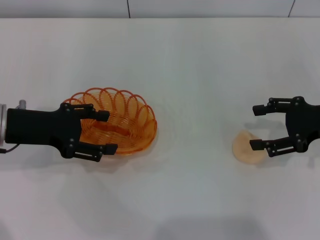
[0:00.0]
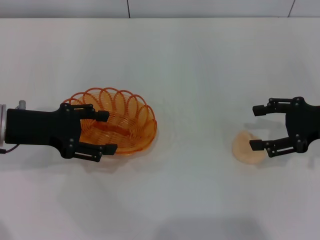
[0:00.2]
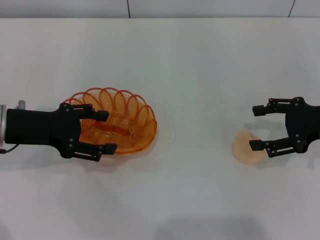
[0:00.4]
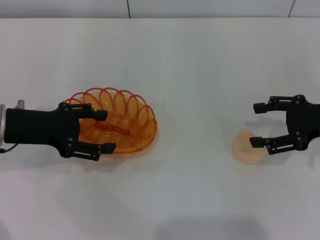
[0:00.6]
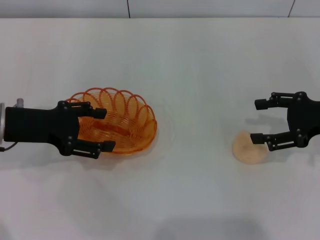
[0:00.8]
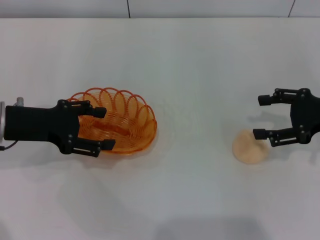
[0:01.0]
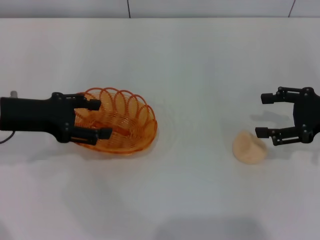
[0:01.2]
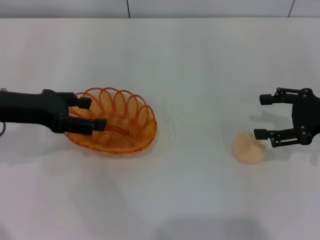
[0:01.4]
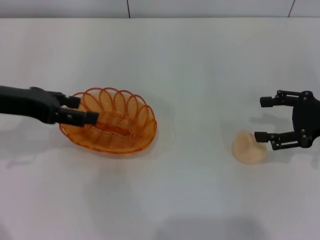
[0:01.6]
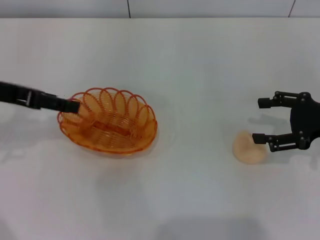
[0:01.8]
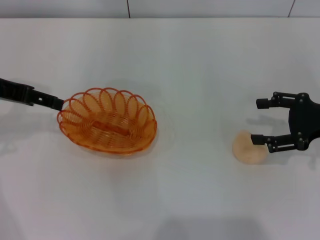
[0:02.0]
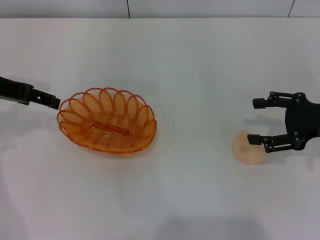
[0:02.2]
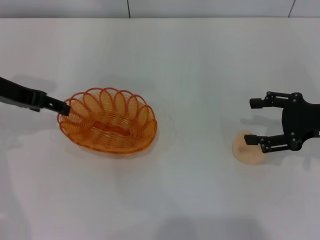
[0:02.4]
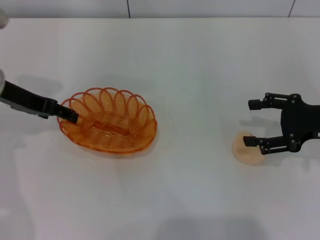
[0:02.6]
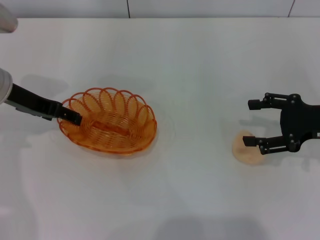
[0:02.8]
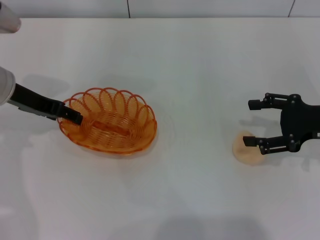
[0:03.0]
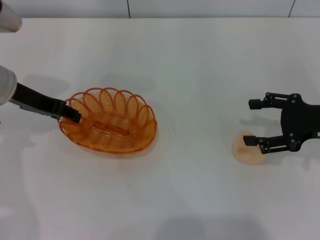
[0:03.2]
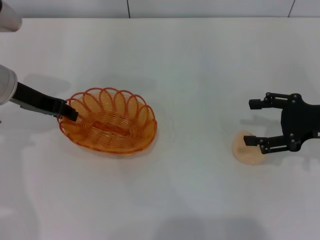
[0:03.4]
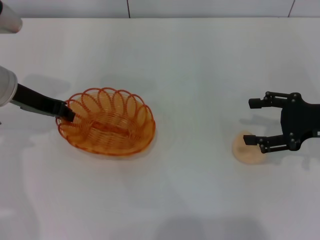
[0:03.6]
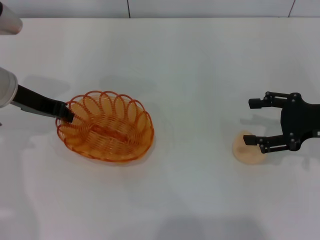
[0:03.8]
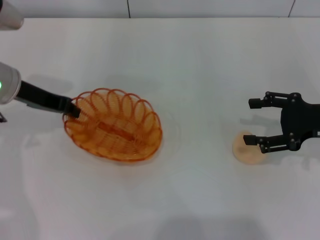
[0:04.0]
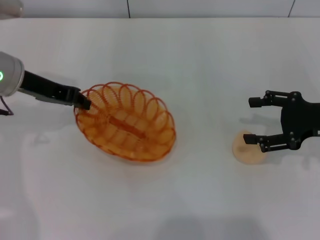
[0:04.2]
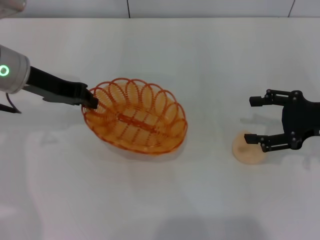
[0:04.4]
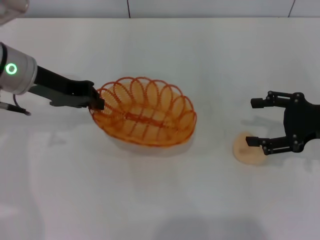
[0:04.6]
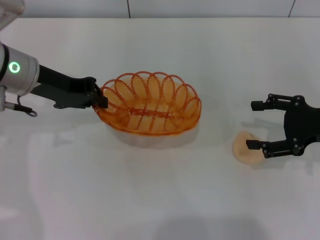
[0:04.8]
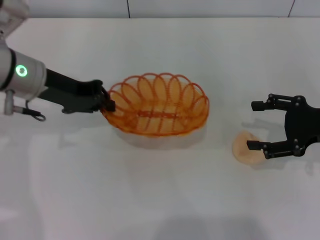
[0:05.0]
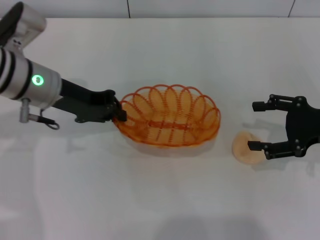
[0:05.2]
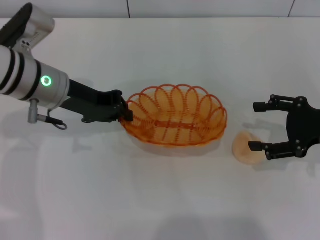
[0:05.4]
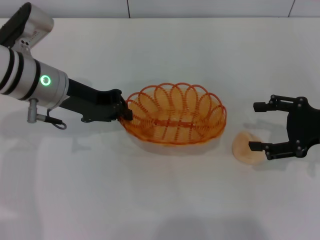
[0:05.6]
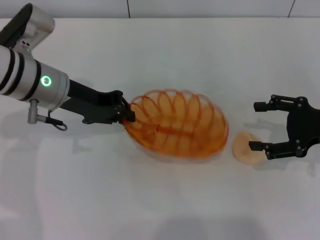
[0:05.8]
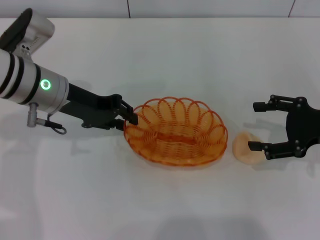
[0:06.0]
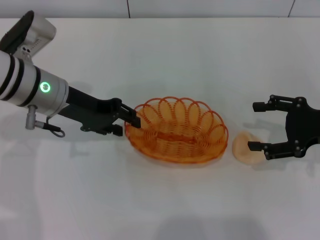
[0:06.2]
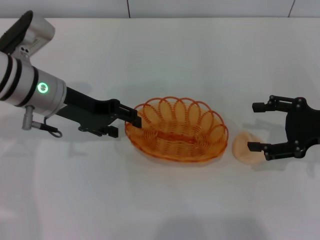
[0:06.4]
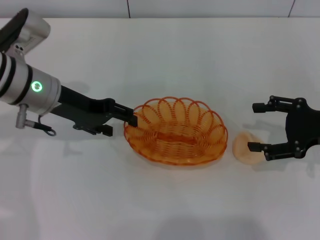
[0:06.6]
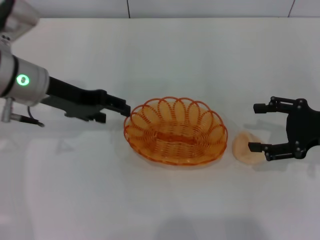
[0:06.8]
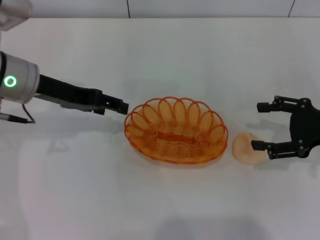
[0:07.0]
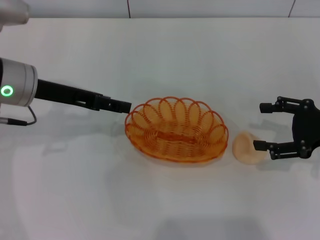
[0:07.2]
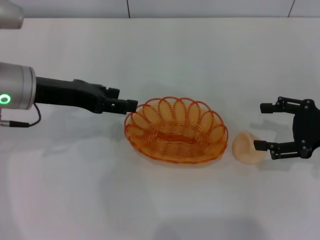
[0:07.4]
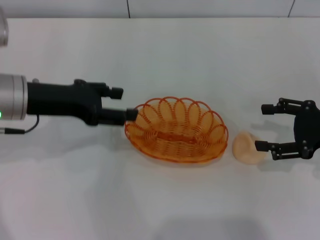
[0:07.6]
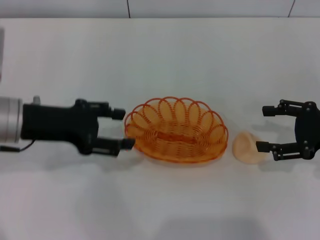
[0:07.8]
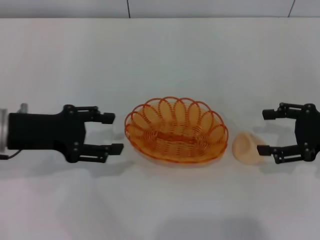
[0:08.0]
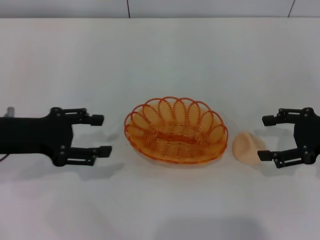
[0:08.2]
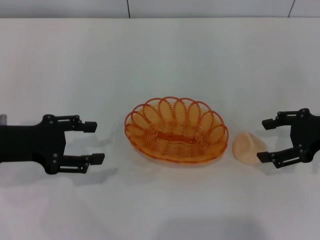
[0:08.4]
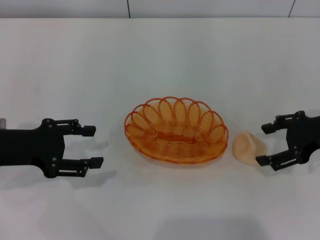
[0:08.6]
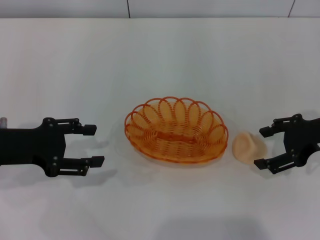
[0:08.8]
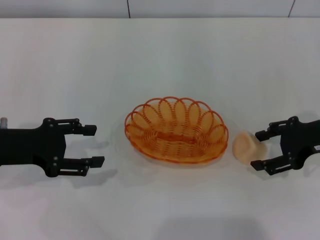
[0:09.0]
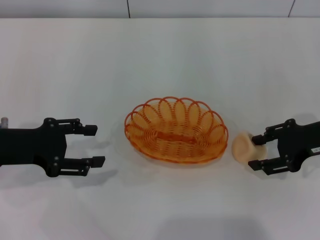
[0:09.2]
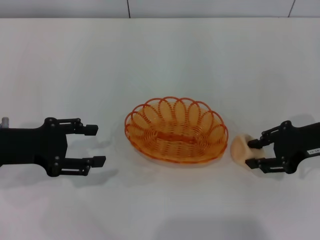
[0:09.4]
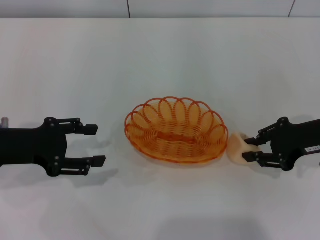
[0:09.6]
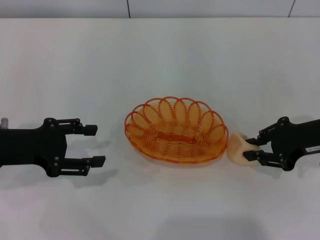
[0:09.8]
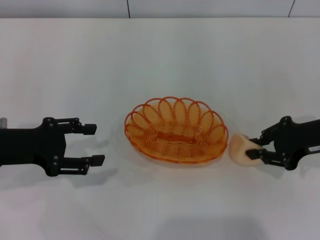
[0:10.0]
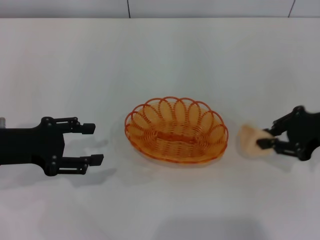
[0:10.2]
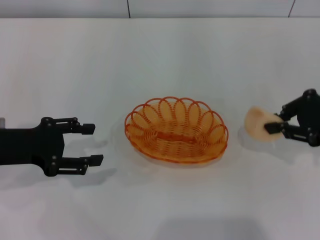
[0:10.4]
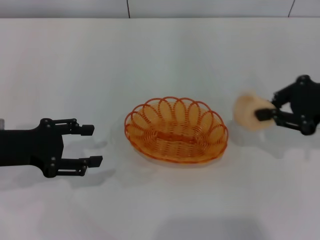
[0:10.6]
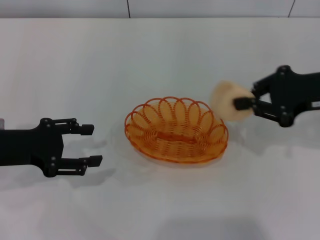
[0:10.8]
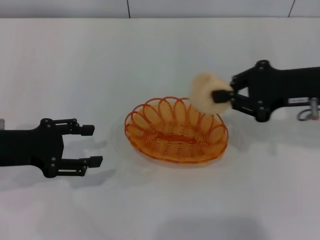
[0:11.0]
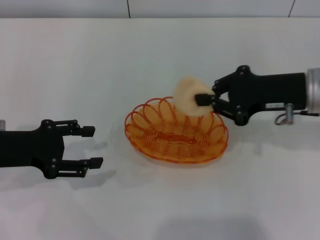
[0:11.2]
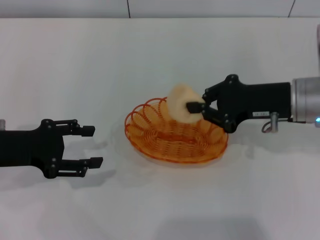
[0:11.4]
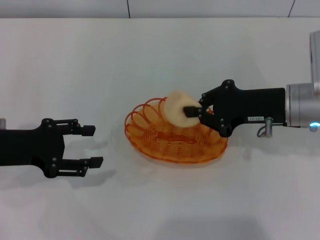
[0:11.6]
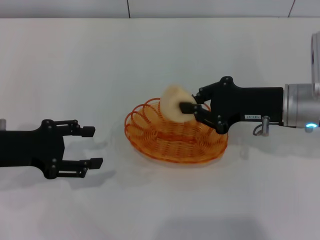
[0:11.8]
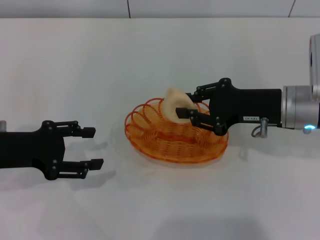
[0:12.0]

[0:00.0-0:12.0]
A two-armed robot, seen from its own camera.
Step, 0:00.0 to 0:04.8: Pick up the basket with the left gripper.
Step, 0:05.0 to 0:08.2: Place the basket in the center of view with the left gripper.
Step, 0:08.4 to 0:10.6: Pick up the egg yolk pastry with the right gripper.
0:00.0 to 0:01.6: The left gripper shifts roughly 5 cm upward.
0:01.6 to 0:03.0: The left gripper travels forward by roughly 5 cm.
0:03.0 to 0:04.4: The left gripper closes up.
0:04.4 to 0:06.0: The left gripper ends up roughly 5 cm from where it was.
0:06.0 to 0:07.6: The left gripper shifts by roughly 5 cm, and opens.
0:07.6 to 0:09.0: The left gripper heads to the left, covering roughly 5 cm.
0:09.0 to 0:10.4: The right gripper closes up.
0:10.4 to 0:12.0: The right gripper shifts about 10 cm to the left.

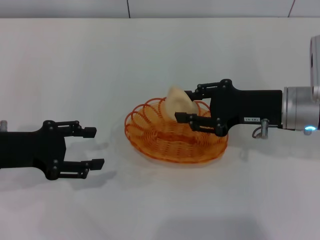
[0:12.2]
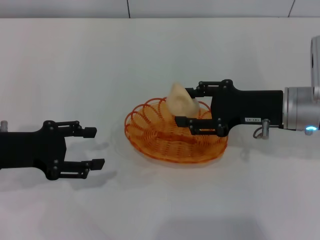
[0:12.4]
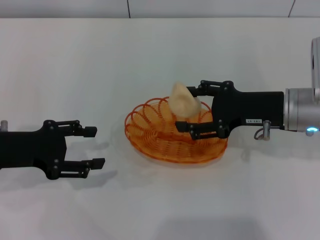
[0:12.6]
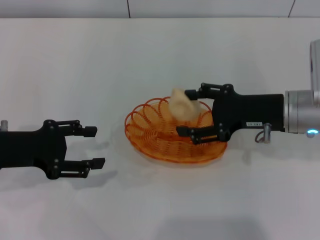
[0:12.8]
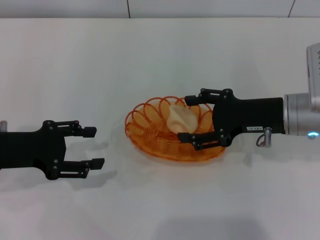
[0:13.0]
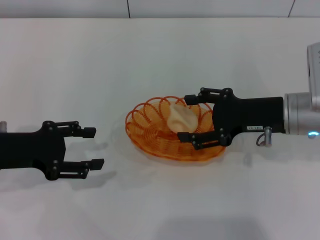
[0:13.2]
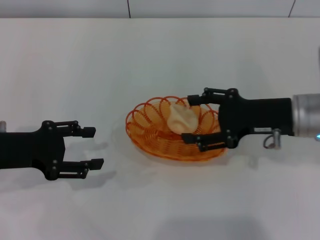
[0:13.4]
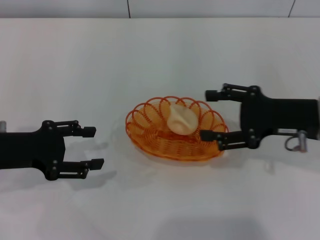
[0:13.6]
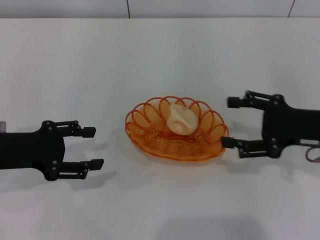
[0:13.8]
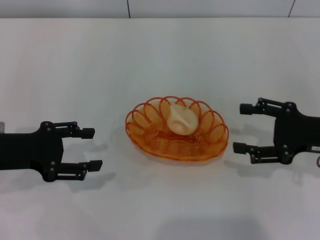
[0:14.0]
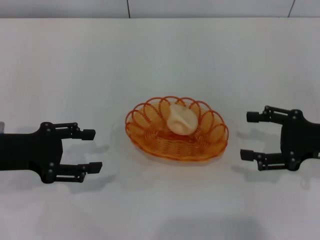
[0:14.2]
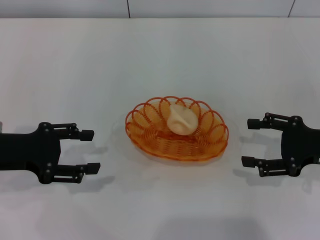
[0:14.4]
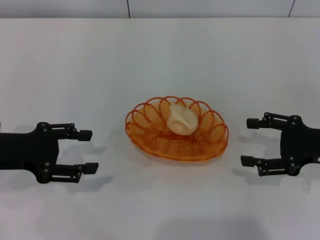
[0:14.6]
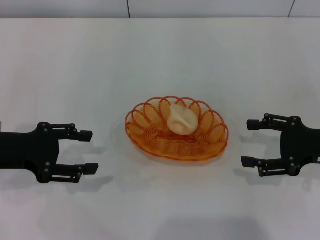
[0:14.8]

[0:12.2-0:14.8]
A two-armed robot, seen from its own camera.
Step, 0:12.2 to 0:13.8: Place the egg yolk pastry into the basket with the right gripper.
0:12.2 to 0:13.4: The right gripper opens its fingers.
0:13.4 to 0:14.8: The right gripper moves to the right, roughly 10 cm.
